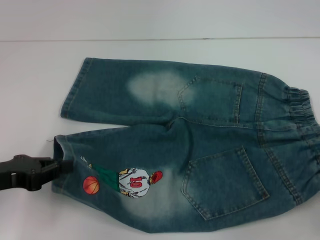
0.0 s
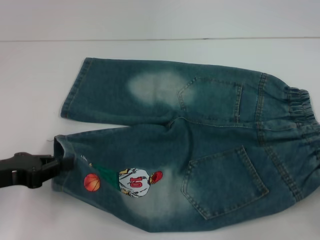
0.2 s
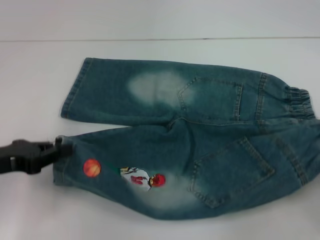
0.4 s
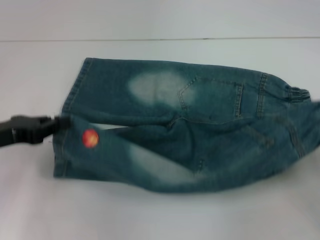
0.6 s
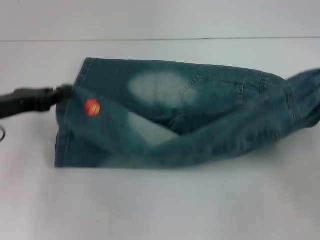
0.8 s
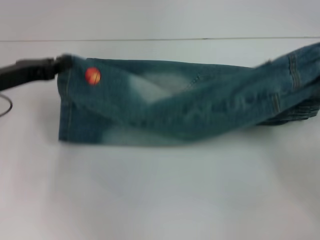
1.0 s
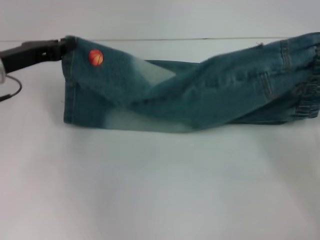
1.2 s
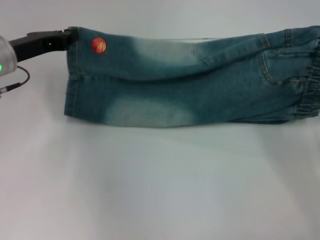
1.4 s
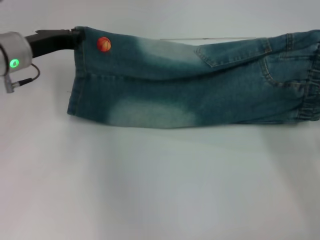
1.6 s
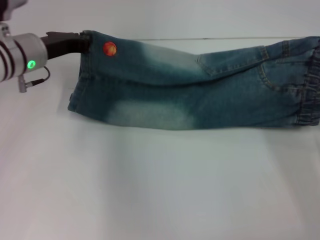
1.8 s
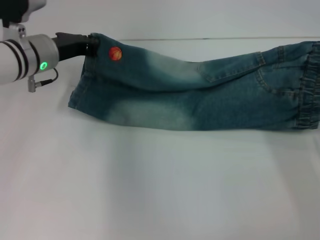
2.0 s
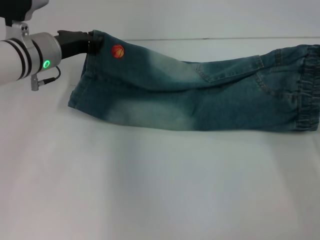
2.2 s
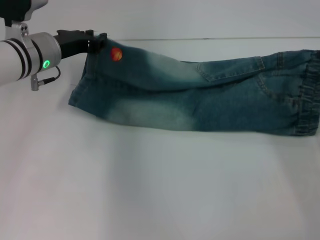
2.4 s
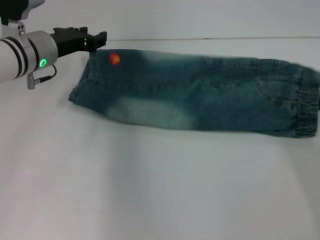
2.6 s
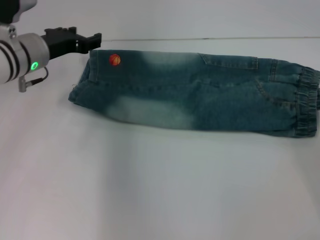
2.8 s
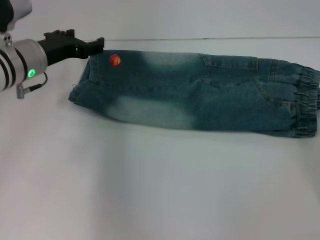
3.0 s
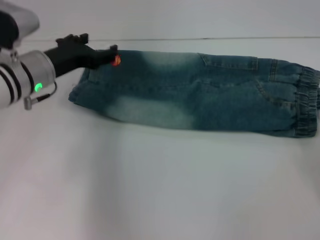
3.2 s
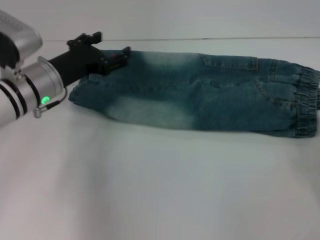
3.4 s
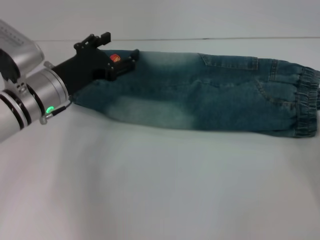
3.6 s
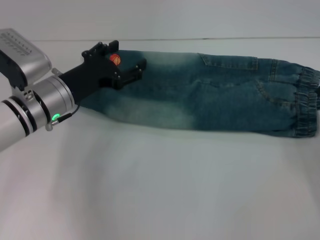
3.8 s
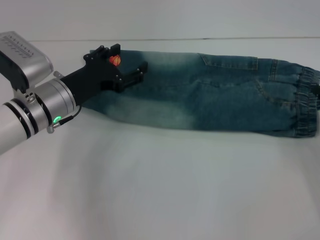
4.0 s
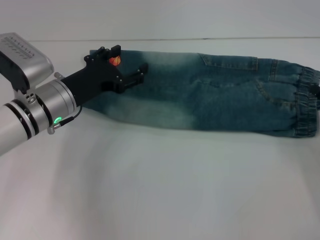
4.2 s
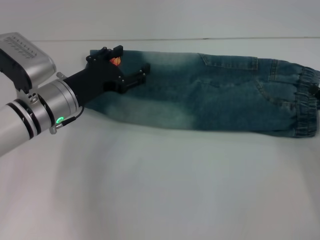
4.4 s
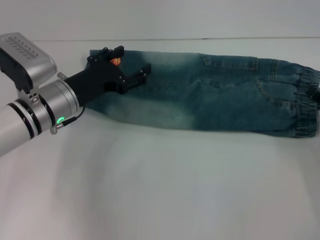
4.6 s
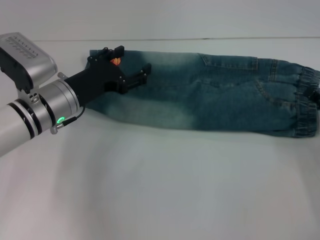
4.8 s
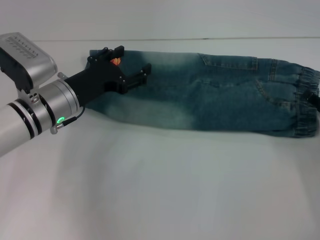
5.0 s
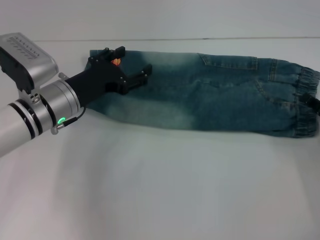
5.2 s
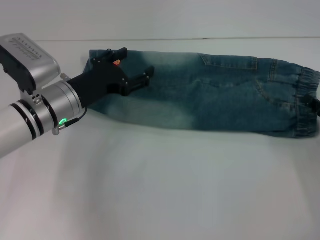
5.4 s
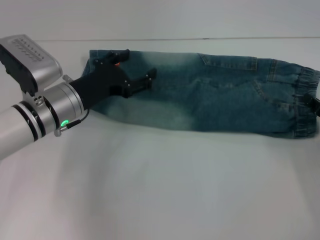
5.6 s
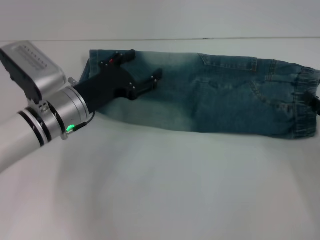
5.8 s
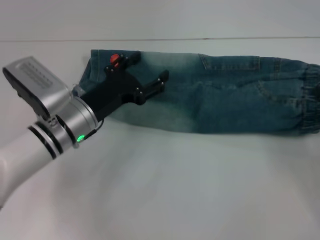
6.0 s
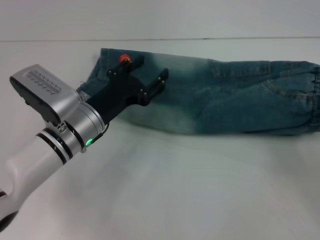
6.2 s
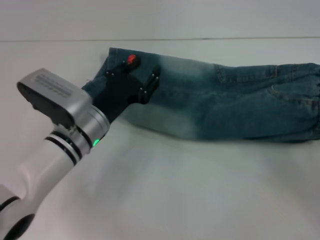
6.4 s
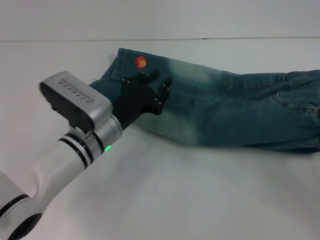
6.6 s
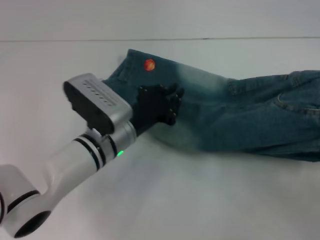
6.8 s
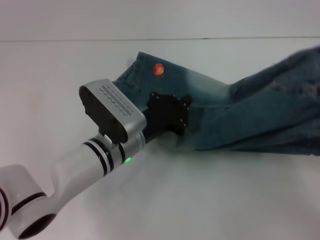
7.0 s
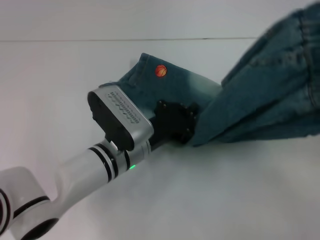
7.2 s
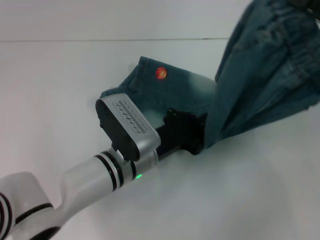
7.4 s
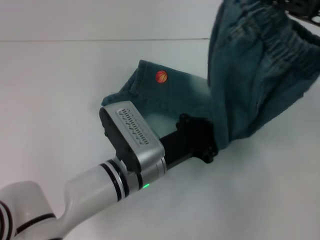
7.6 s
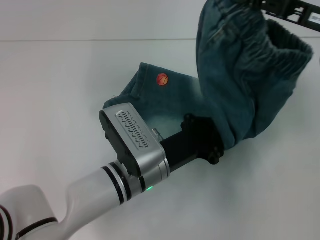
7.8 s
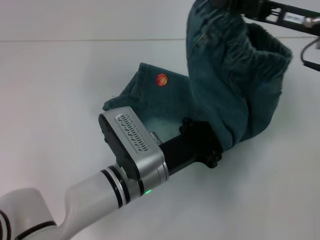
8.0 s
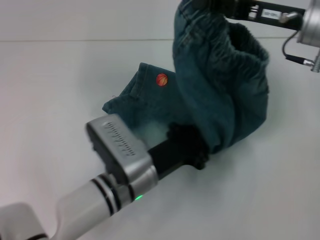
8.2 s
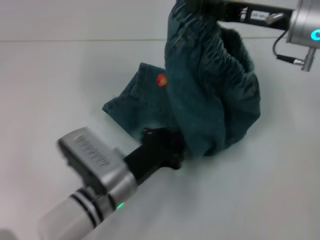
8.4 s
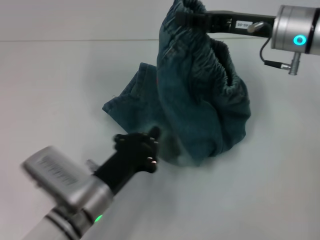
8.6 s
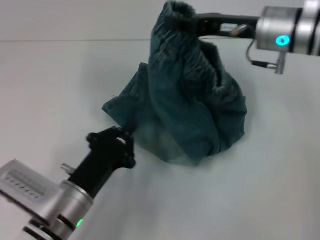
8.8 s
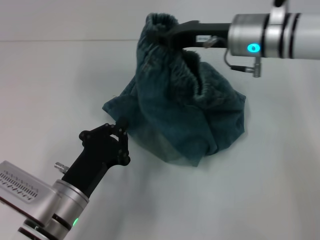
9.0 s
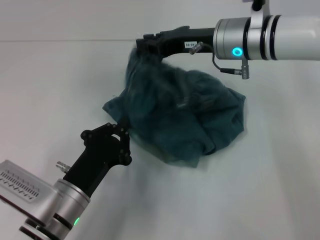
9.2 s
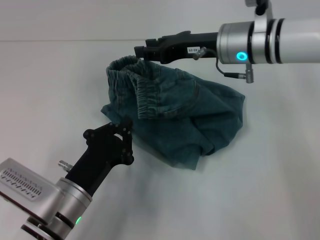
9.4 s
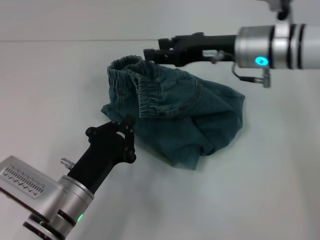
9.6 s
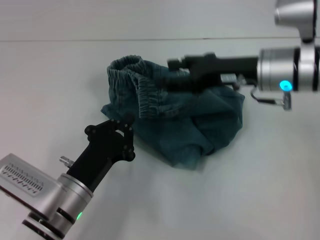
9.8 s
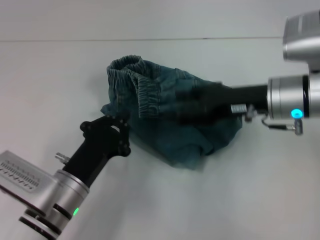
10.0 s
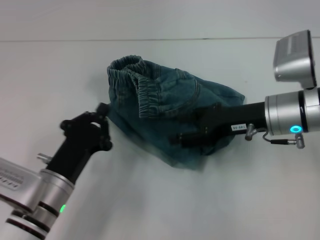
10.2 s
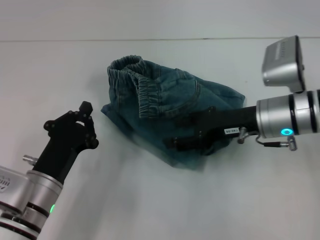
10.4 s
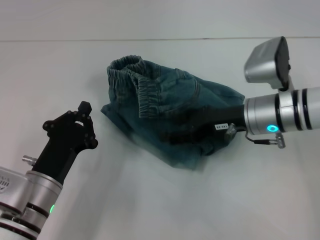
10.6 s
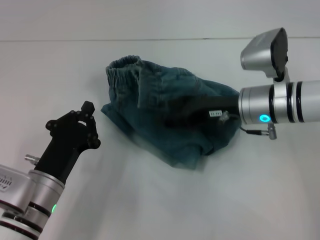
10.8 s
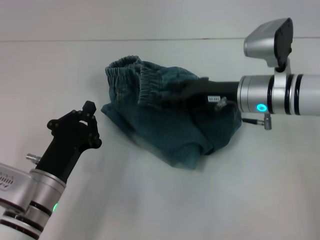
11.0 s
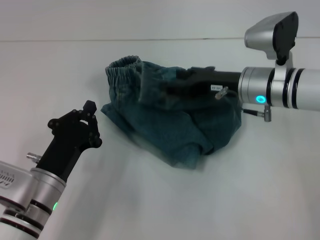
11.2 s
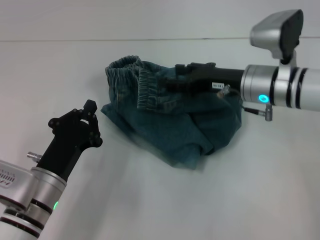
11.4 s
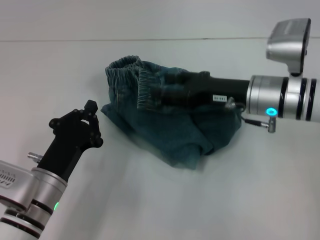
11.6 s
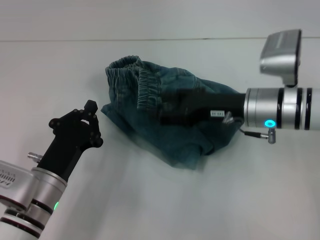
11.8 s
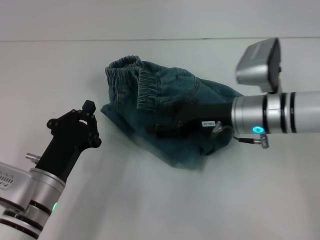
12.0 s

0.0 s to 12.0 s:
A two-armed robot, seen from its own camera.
Step, 0.0 to 2.6 s: Fold upward with your right hand.
Step, 2.8 to 5.6 s: Grab the waistband with your right hand.
Step, 5.8 to 7.8 s: Press the middle of the pants with your left hand.
Step, 8.2 to 9.6 s: Fold to the left with your right hand.
0.0 to 1.6 s: The right gripper shifts about 15 cm forward and to the left. The left gripper travels forward by about 20 cm.
1.6 to 3.0 s: The left gripper opens, while the right gripper changes place by roughly 5 cm, and opens its fingers.
3.0 to 4.4 s: The left gripper goes roughly 5 cm backward.
4.4 to 6.0 s: The right gripper closes its fingers.
6.0 to 7.6 s: The left gripper travels to the right and backward by some 10 cm, and closes its fingers; the right gripper goes approximately 20 cm upward, forward and to the left.
7.6 to 9.0 s: The left gripper moves to the left and backward, some 10 cm, while the right gripper is displaced to the left and forward by about 15 cm.
9.0 to 10.4 s: The right gripper travels backward and downward by about 10 cm, and opens its fingers.

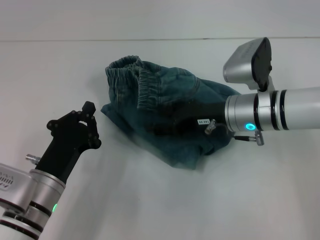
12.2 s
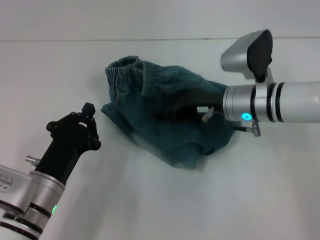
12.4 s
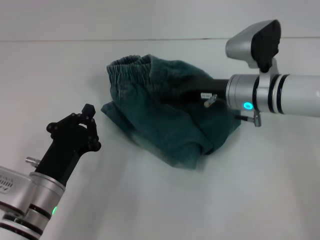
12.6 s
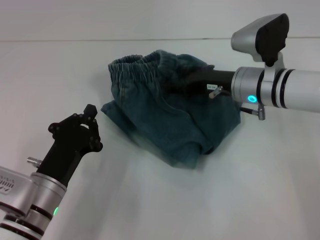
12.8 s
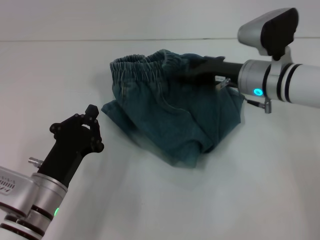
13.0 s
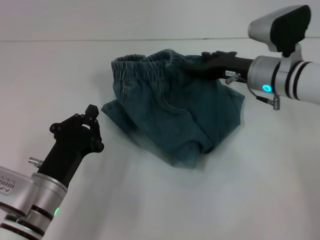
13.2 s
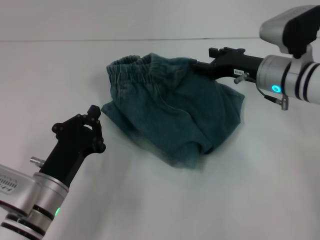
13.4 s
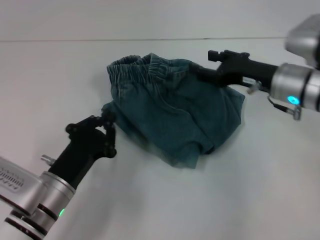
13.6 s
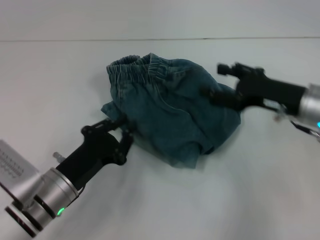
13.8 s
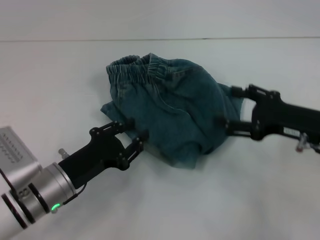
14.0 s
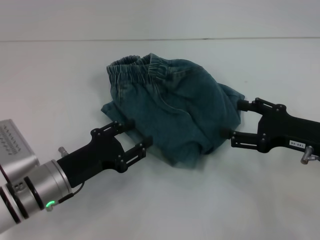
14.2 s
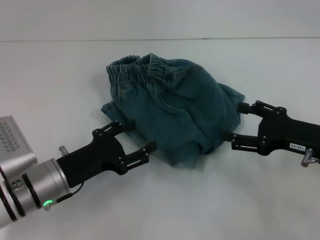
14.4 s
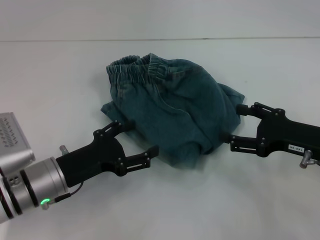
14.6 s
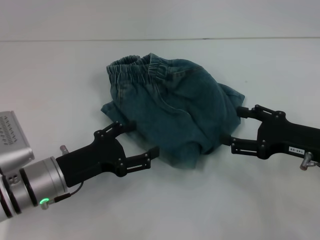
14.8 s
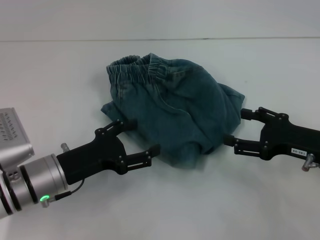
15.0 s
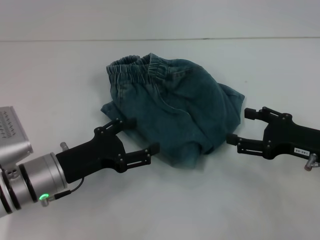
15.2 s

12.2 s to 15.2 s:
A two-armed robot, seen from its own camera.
12.2 to 13.8 s: The right gripper heads to the right, covering some 10 cm.
13.8 to 15.2 s: The left gripper opens its fingers. The right gripper shifts about 5 cm backward.

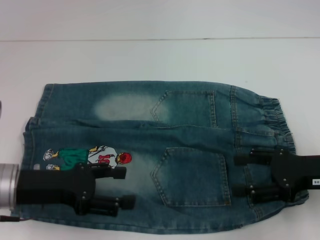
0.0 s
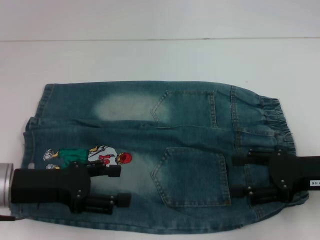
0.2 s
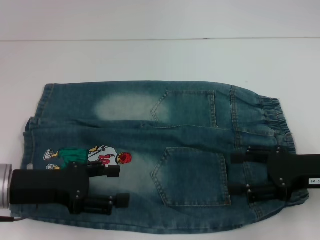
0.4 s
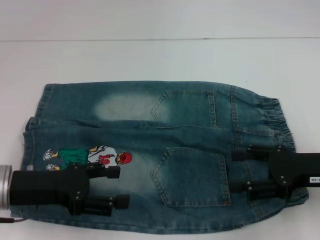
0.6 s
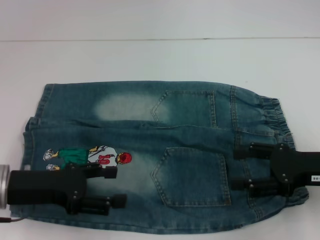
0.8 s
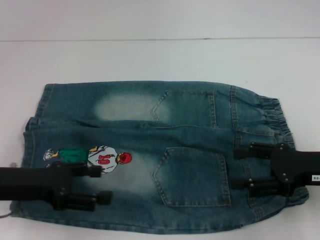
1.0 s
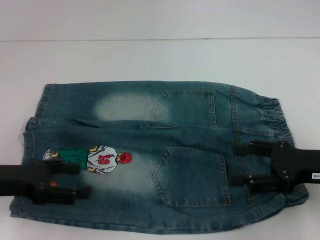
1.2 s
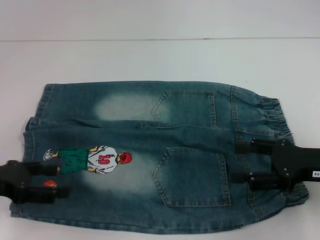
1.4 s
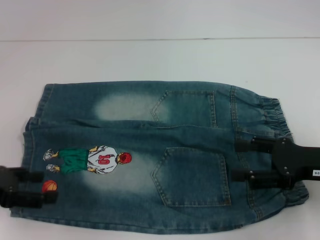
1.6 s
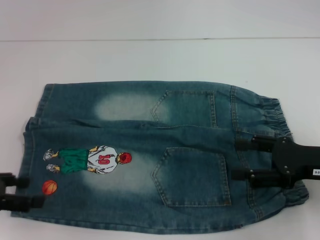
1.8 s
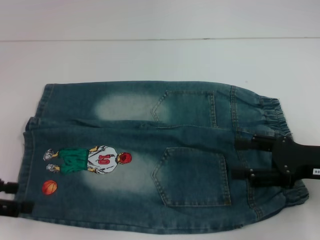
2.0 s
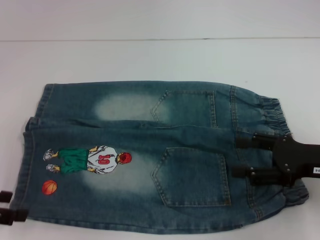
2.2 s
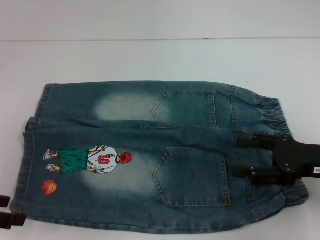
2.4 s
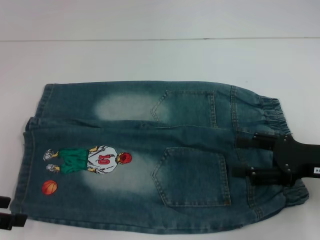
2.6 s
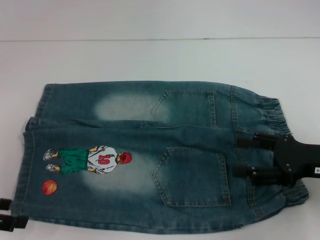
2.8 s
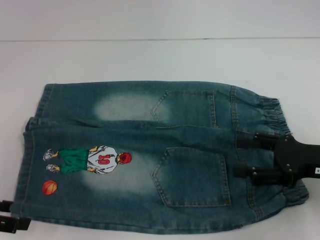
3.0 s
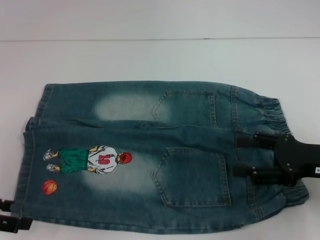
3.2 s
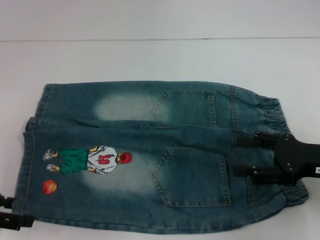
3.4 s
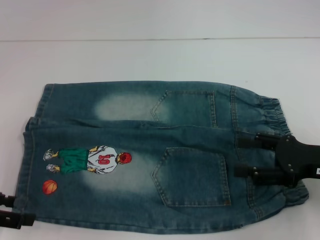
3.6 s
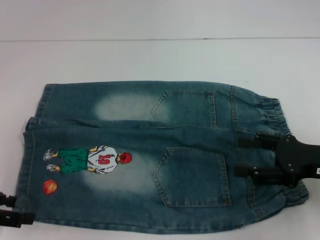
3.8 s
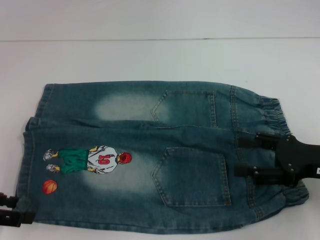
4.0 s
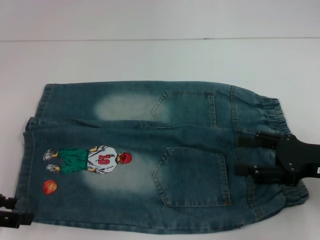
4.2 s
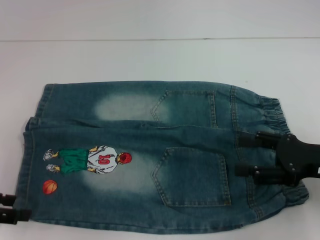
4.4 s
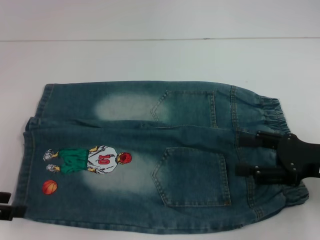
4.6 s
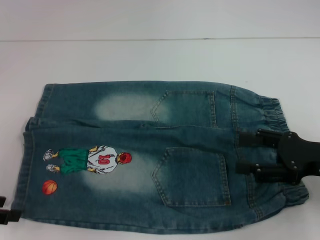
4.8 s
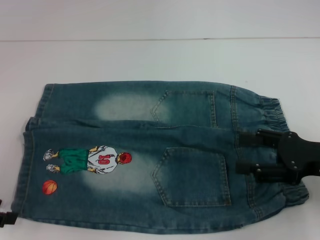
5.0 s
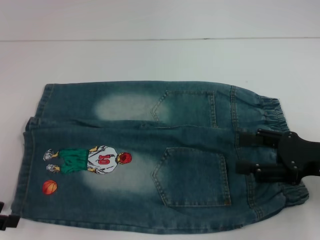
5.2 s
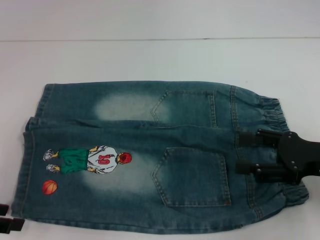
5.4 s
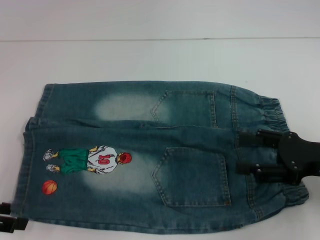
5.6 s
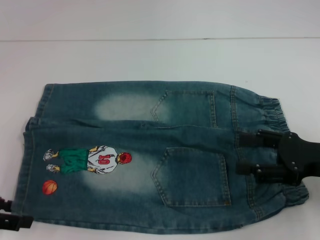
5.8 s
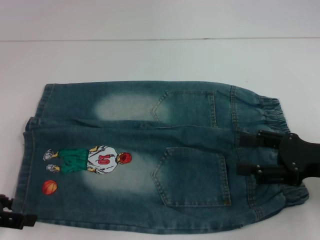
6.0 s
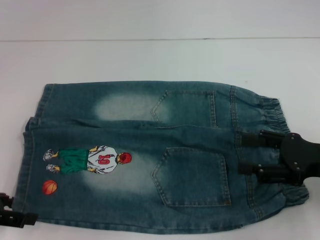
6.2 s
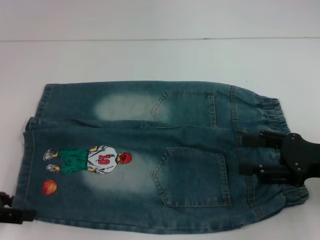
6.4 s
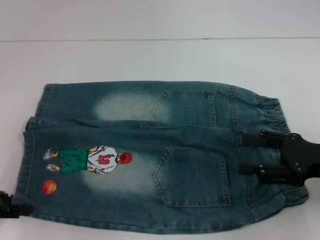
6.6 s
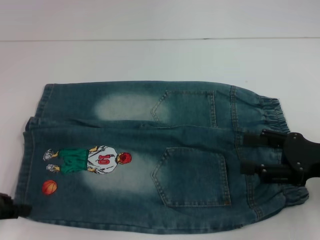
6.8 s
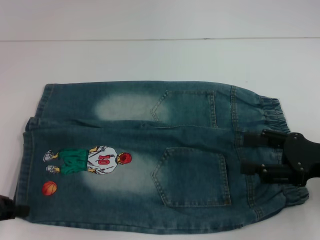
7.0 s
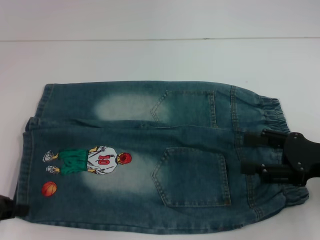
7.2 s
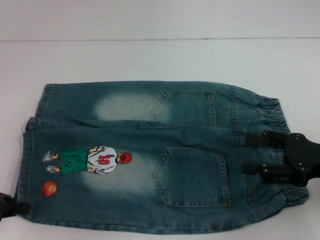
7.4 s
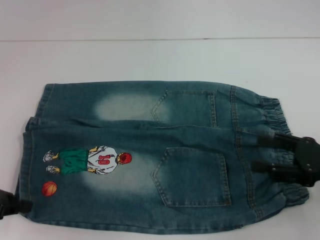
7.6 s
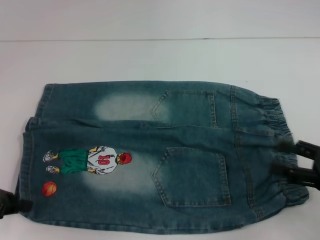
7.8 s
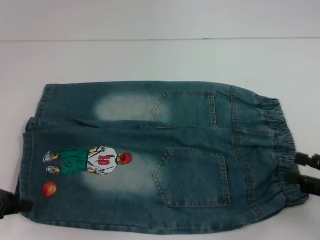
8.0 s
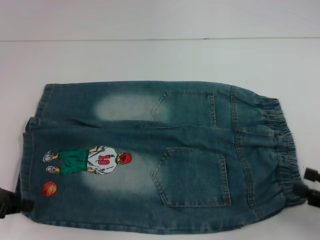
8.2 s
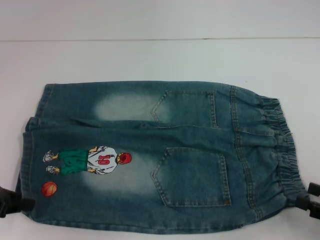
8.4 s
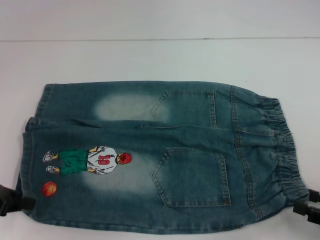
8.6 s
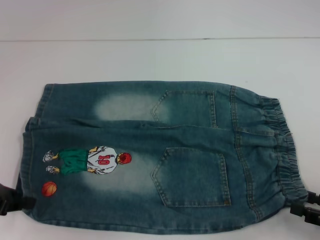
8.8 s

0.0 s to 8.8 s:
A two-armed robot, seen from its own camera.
Step, 0.0 to 6.8 s: Grab the lower left pant leg with your left hand.
0.0 to 1.4 s: The left gripper is displaced to the left by about 10 cm.
1.4 to 3.0 s: The grippers stay close to where they were, moving slightly.
3.0 to 5.8 s: The two grippers keep their place.
5.8 to 7.4 s: The left gripper closes.
7.4 to 8.8 s: The right gripper heads backward, to the right and downward, covering roughly 15 cm.
